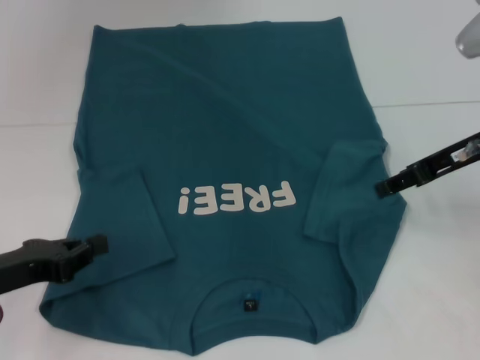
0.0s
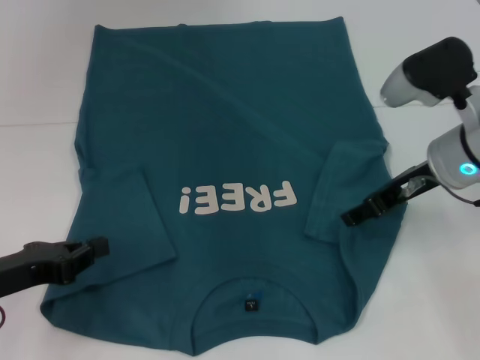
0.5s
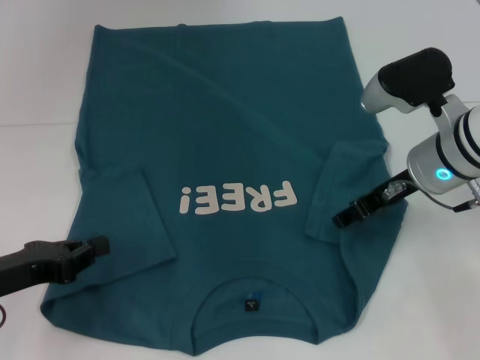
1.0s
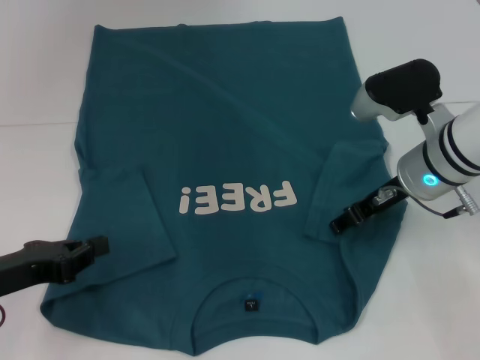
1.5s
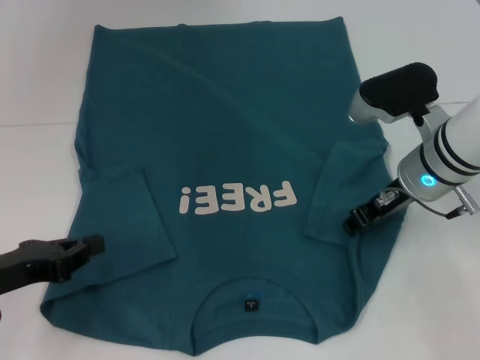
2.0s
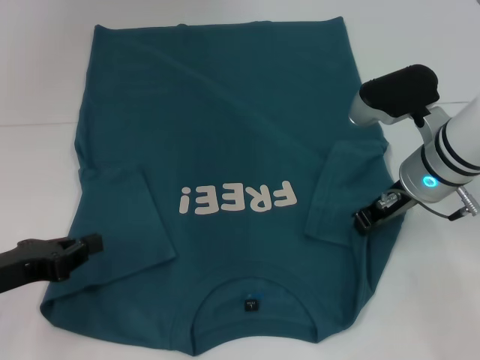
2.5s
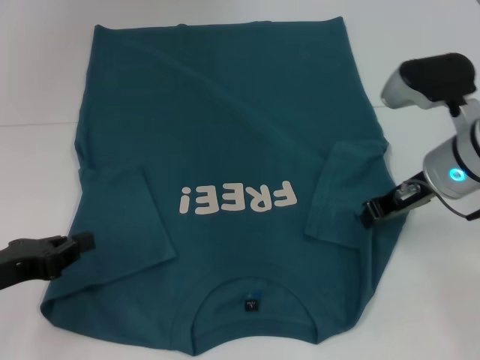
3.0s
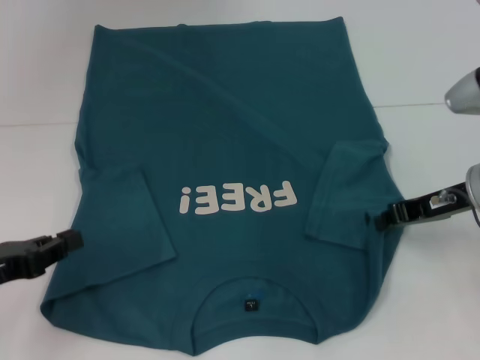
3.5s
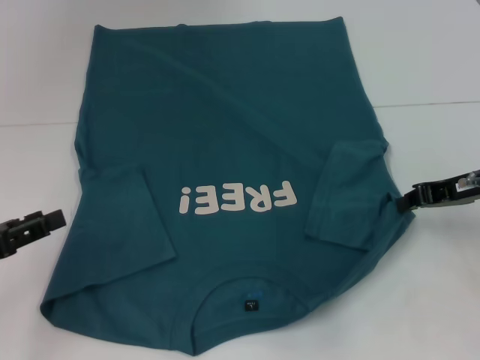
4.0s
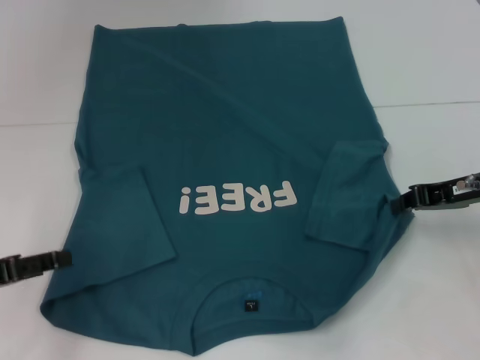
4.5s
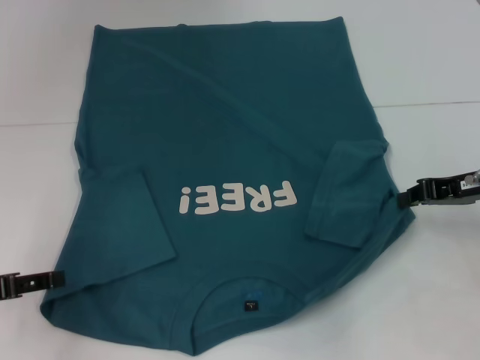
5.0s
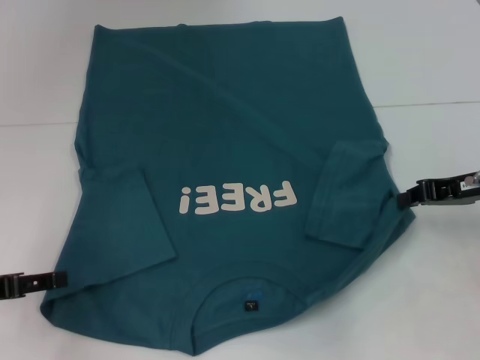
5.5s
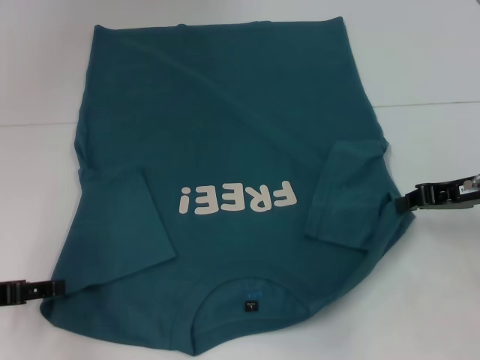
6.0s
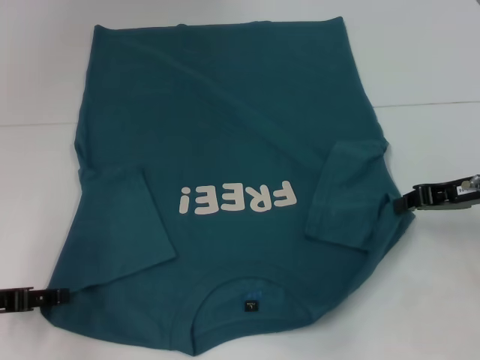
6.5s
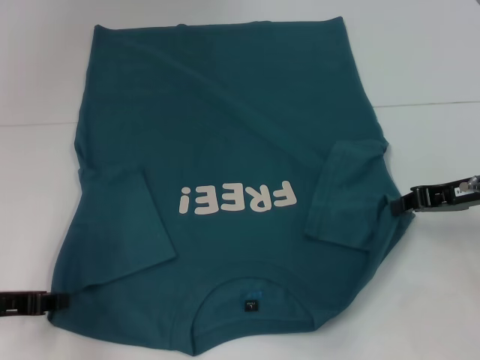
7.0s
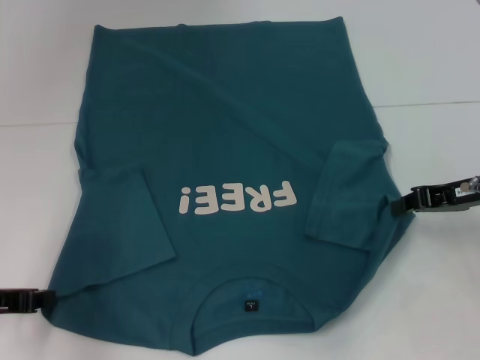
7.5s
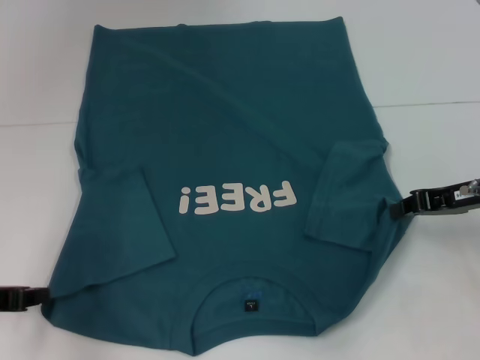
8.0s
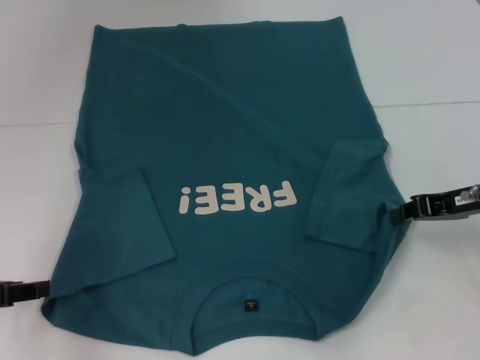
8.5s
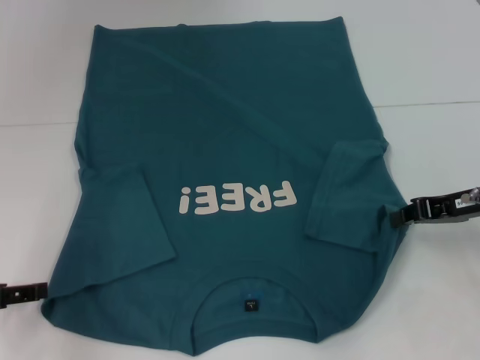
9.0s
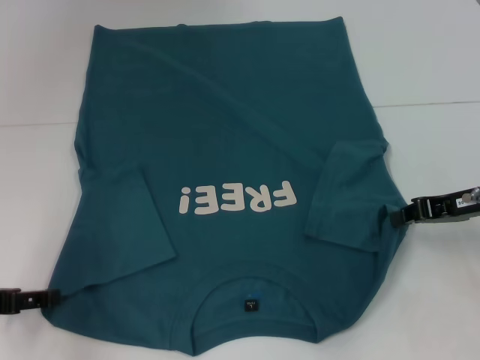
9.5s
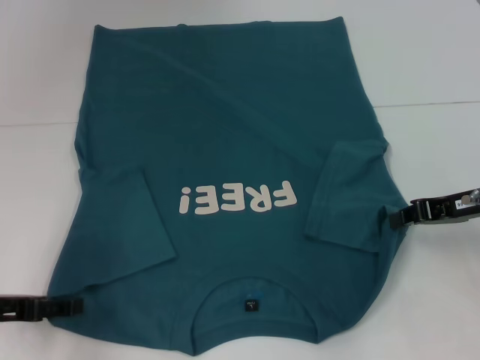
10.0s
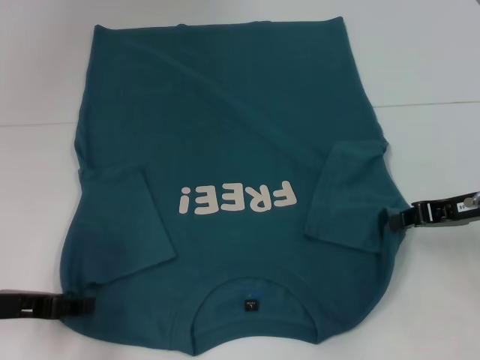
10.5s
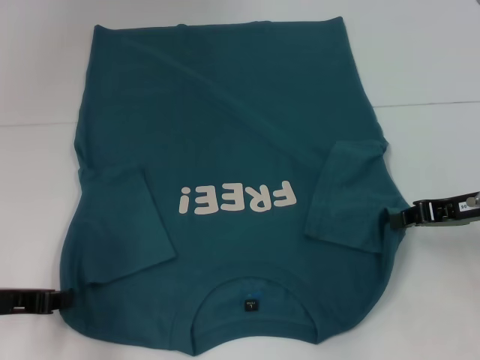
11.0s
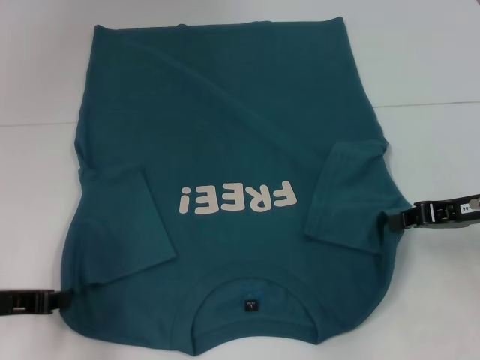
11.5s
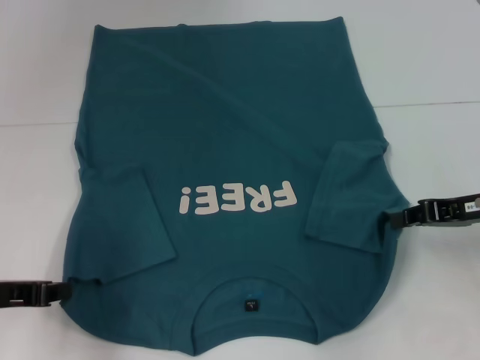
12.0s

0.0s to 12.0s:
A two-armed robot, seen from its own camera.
Step, 0.0s to 4.5s: Grab the bottom right corner with your right hand.
0.0s to 2.0s: The right gripper heads to the left and downward, covering about 10 cm.
2.0s to 4.0s: The right gripper goes some 10 cm to the right, and closes up.
4.0s to 6.0s: The left gripper opens.
6.0s to 8.0s: The left gripper closes up.
8.0s to 10.0s: The left gripper opens up.
10.0s to 12.0s: The left gripper closes.

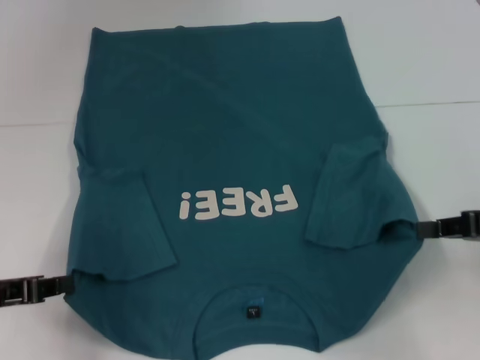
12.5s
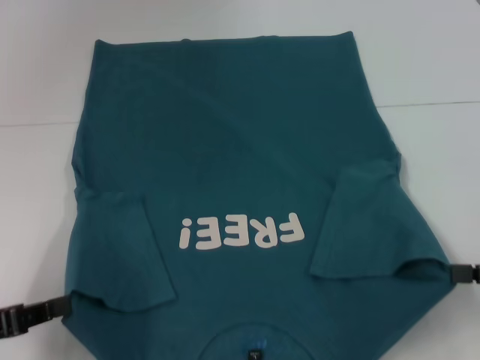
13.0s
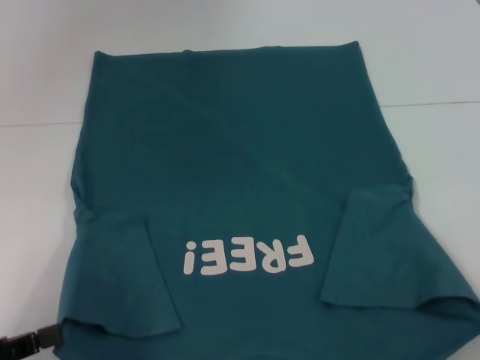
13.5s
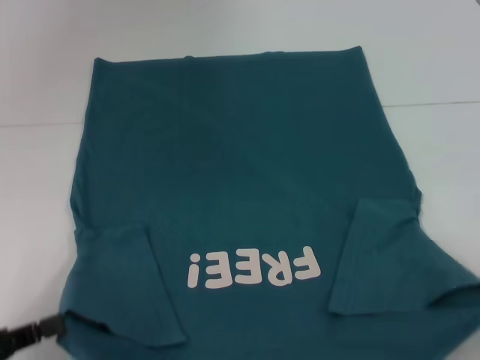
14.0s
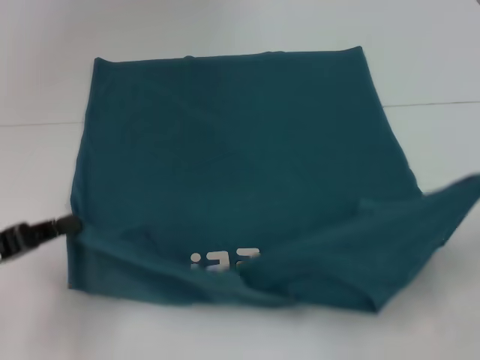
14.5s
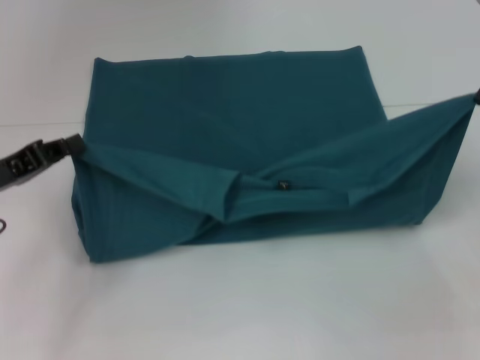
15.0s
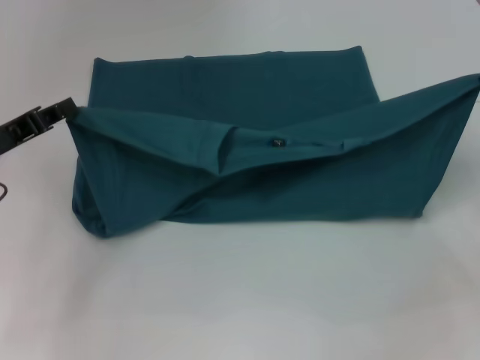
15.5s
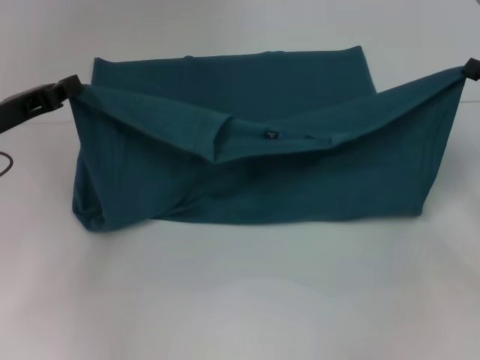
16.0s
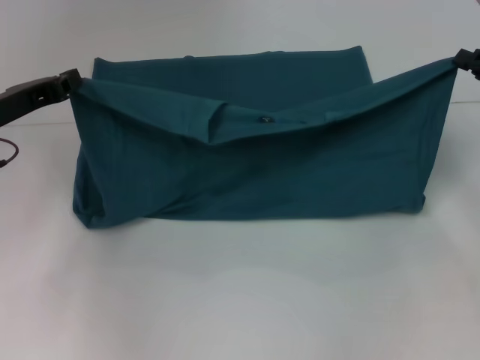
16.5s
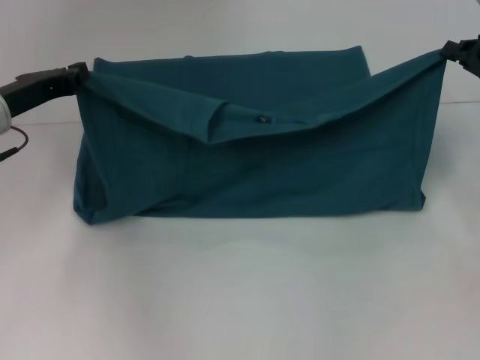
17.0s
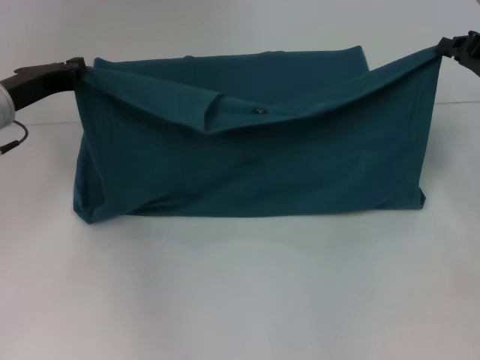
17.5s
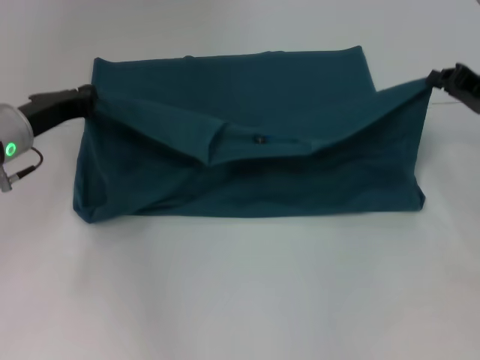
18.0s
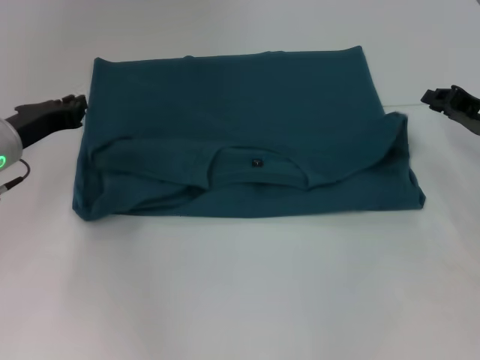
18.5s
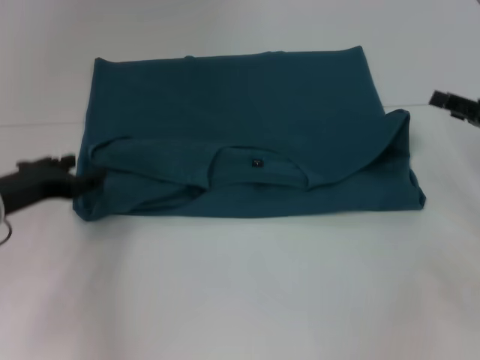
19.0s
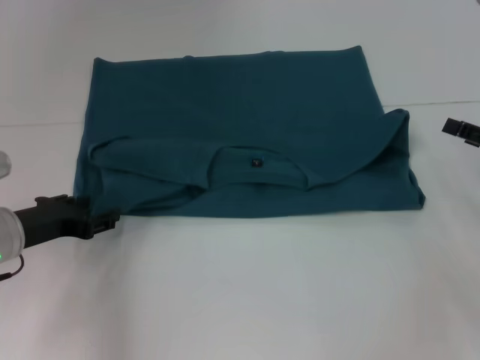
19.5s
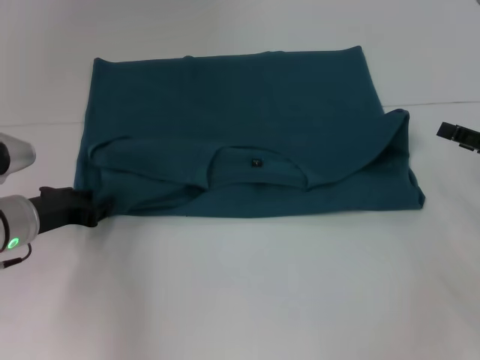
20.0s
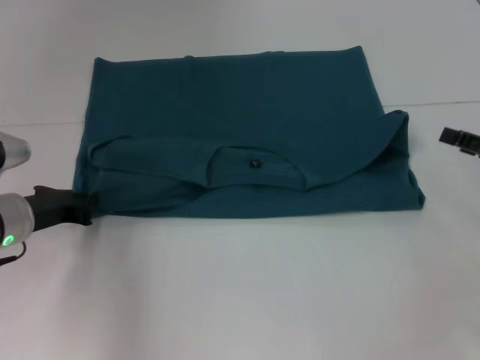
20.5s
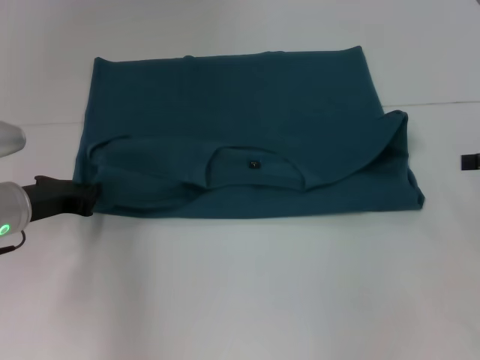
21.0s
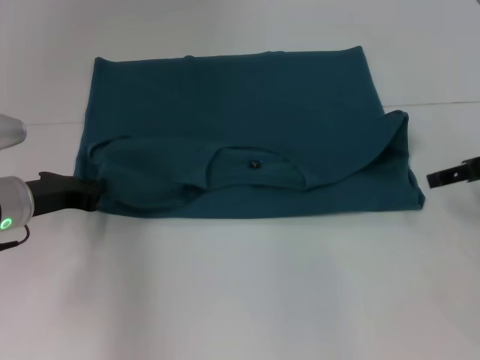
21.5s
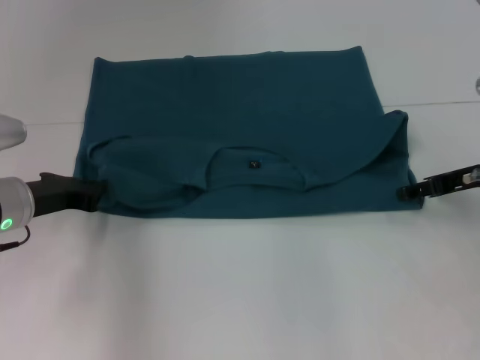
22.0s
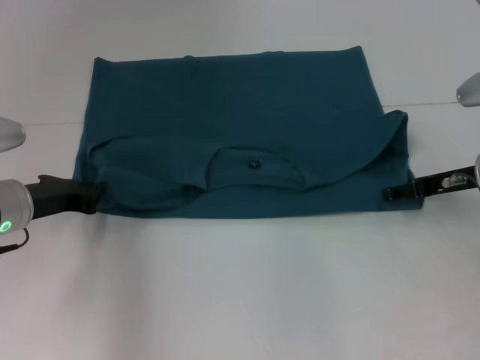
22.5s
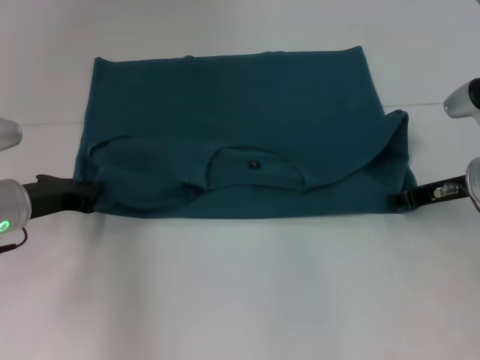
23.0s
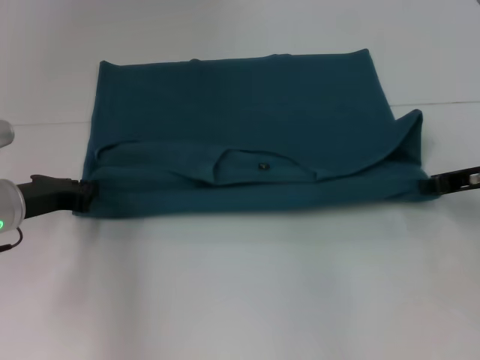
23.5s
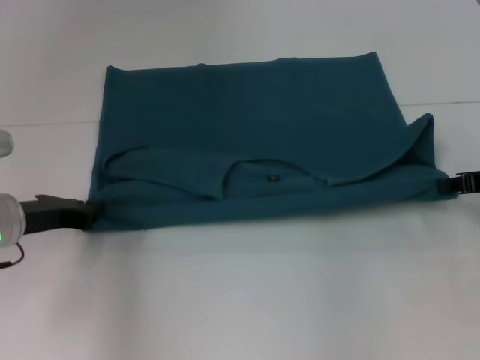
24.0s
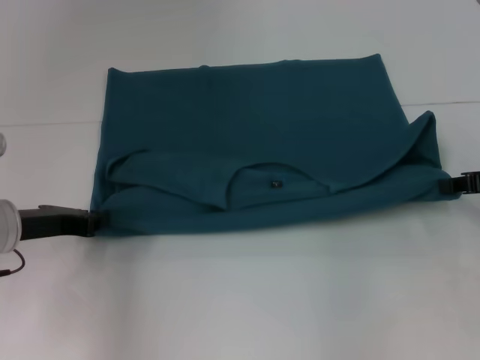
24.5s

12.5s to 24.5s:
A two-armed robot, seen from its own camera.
Step, 13.0s to 18.5s: Fold the clothes to the left.
Step, 13.0s to 18.5s: Fold the clothes to the right.
12.5s to 14.5s: The right gripper moves to the right, approximately 5 cm, and goes backward and returns, roughly 10 cm each way, while the left gripper moves about 10 cm backward and comes back.
14.5s to 16.5s: The grippers both shift forward by approximately 15 cm.
16.5s to 18.5s: The right gripper moves some 5 cm.
18.5s to 20.5s: The right gripper heads backward, covering approximately 10 cm, and opens up; the left gripper changes place by roughly 5 cm, and opens, then closes once more.
20.5s to 22.5s: The right gripper goes roughly 10 cm to the left and forward.
22.5s to 24.5s: The right gripper moves to the right, some 5 cm, and closes its fingers.

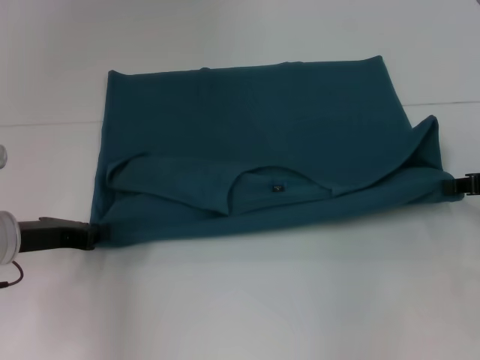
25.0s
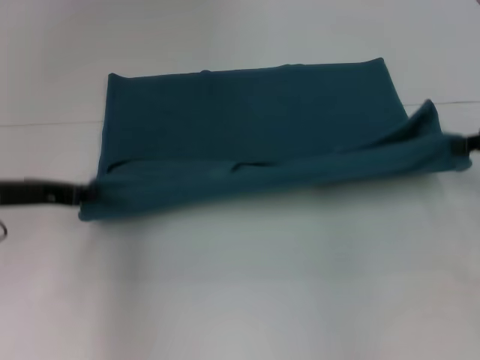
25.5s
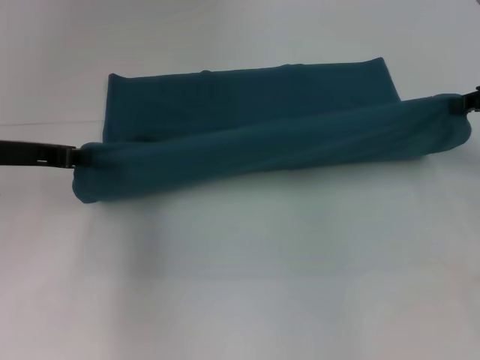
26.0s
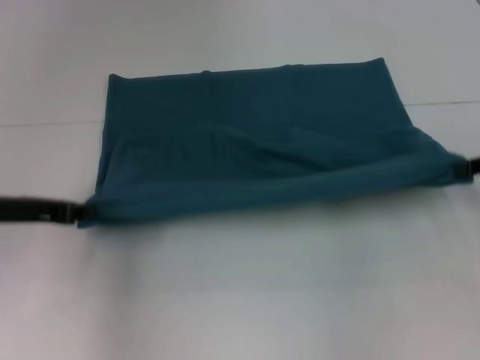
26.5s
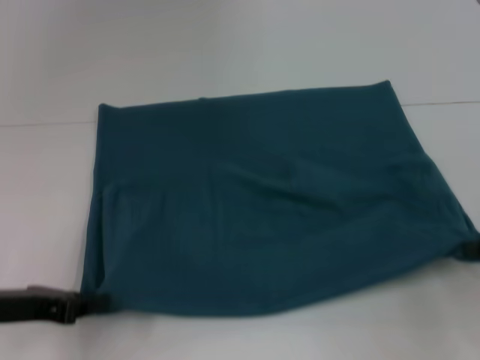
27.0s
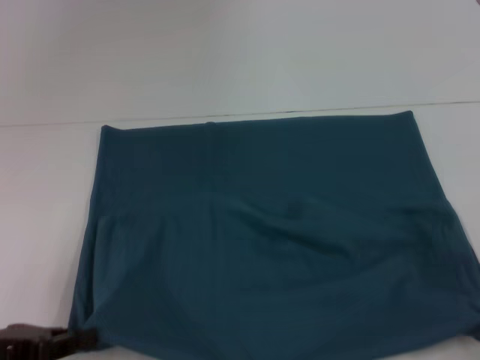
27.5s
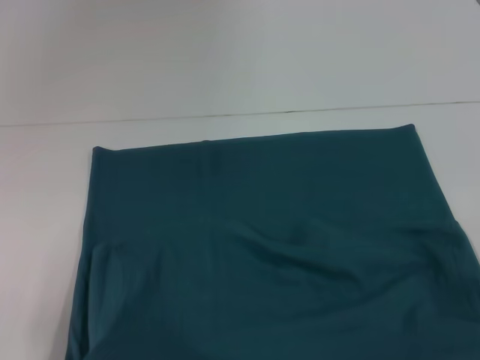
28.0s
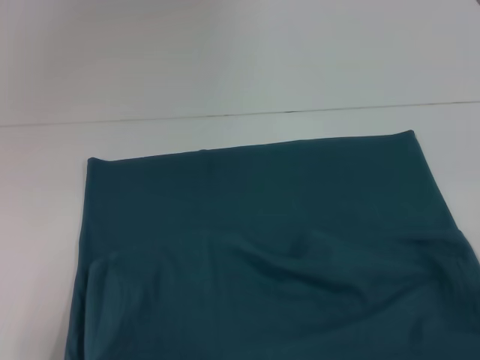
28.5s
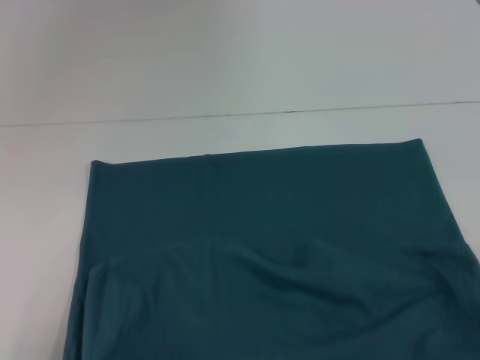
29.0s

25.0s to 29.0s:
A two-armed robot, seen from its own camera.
Step, 25.0s to 27.0s: Pull the clothes with your left hand.
Step, 25.0s to 27.0s: Pull the clothes with your right hand.
25.0s to 27.0s: Both grippers travel together backward, roughly 5 cm.
27.0s to 29.0s: The two grippers go about 15 cm backward.
